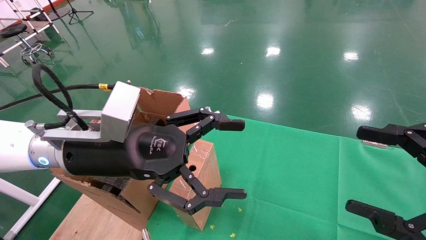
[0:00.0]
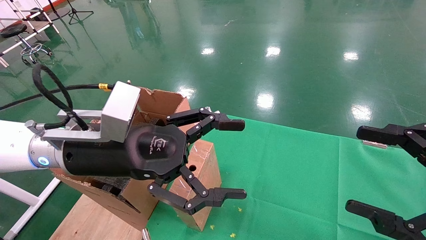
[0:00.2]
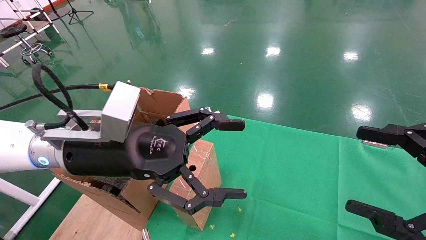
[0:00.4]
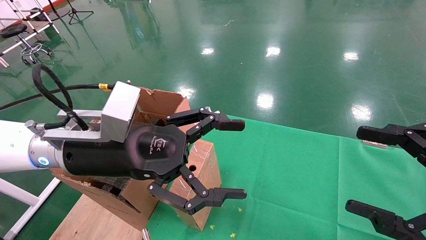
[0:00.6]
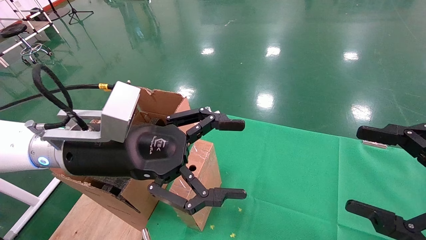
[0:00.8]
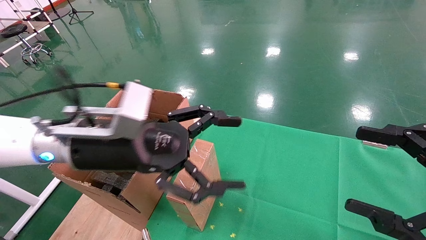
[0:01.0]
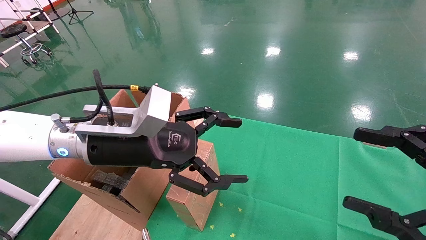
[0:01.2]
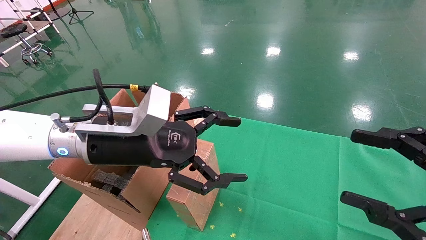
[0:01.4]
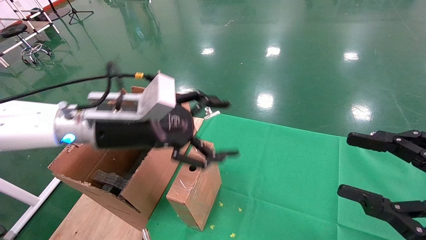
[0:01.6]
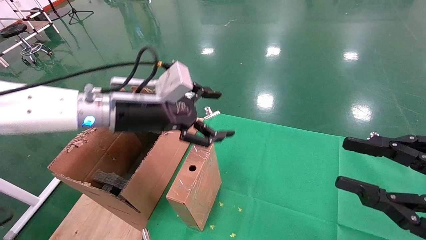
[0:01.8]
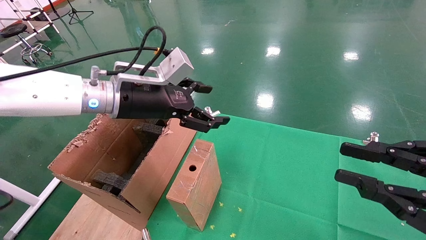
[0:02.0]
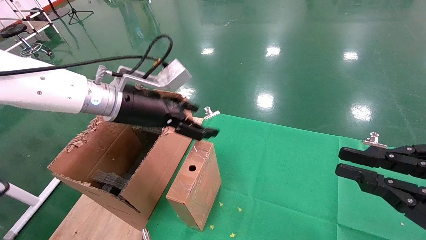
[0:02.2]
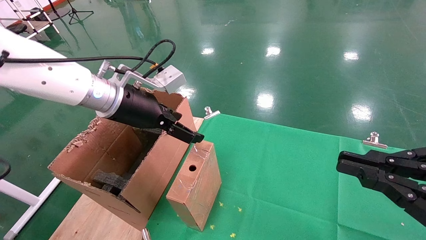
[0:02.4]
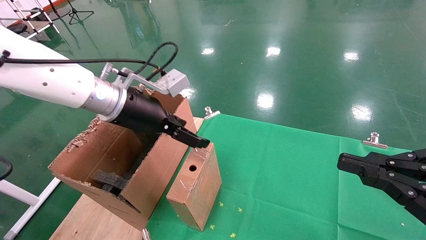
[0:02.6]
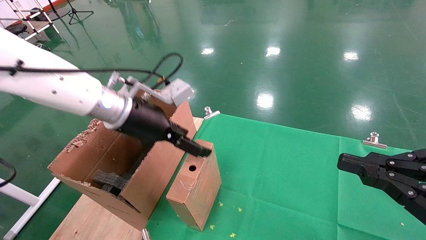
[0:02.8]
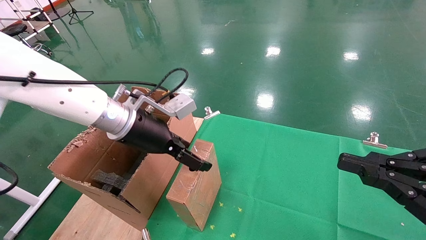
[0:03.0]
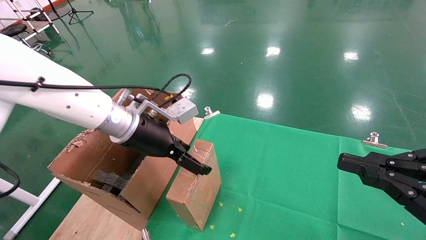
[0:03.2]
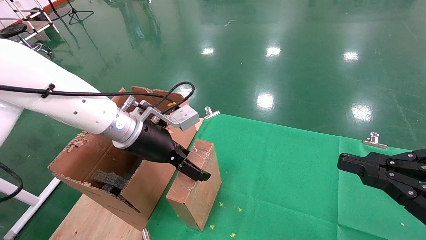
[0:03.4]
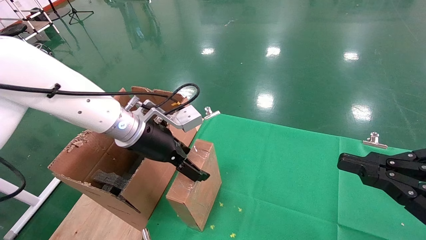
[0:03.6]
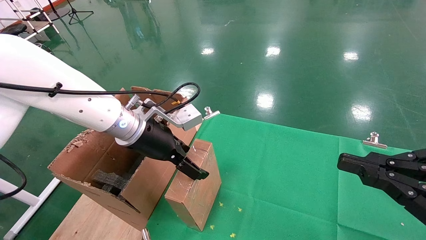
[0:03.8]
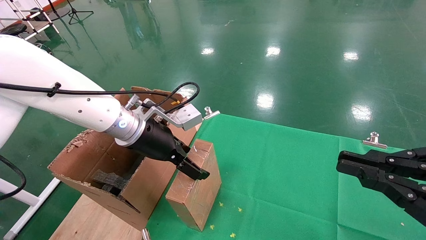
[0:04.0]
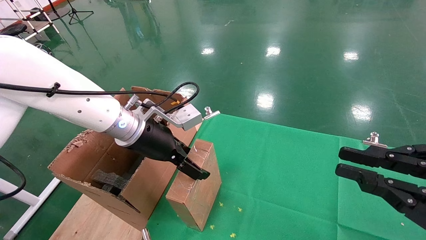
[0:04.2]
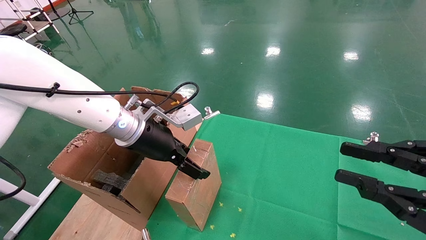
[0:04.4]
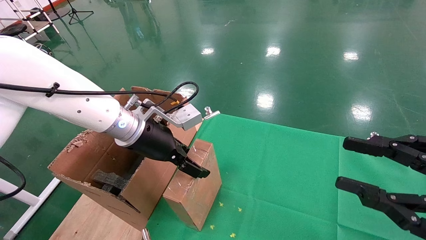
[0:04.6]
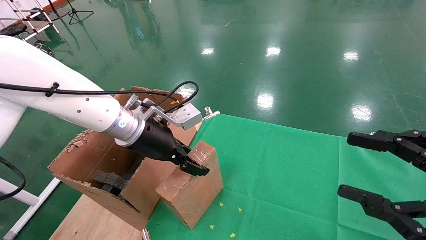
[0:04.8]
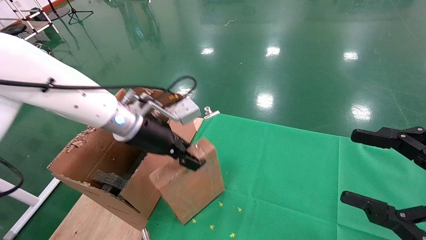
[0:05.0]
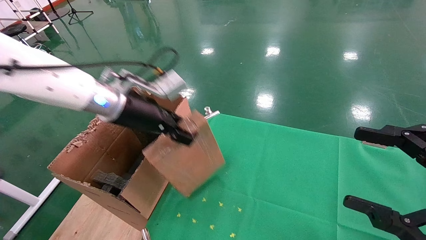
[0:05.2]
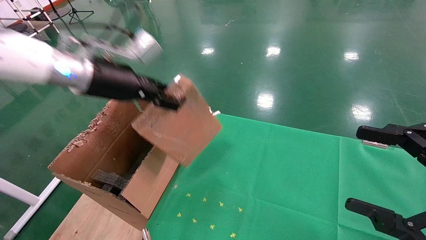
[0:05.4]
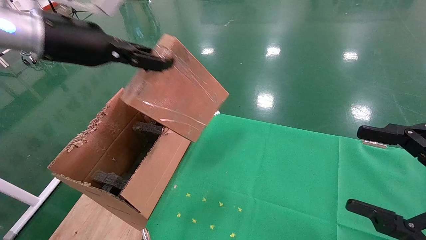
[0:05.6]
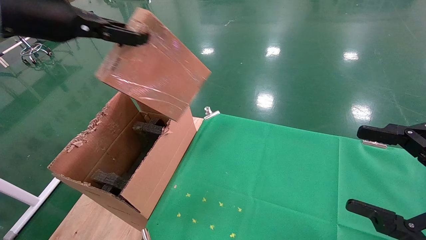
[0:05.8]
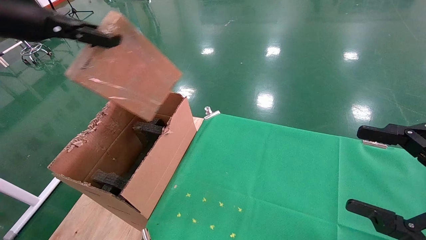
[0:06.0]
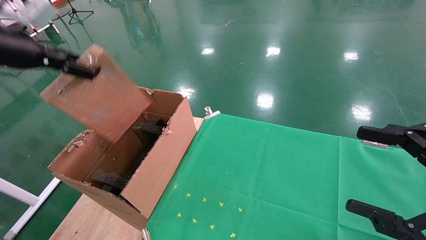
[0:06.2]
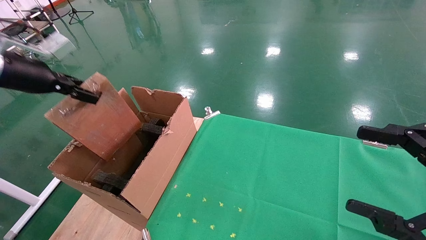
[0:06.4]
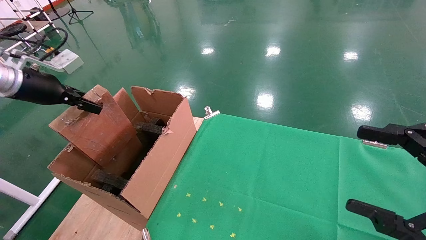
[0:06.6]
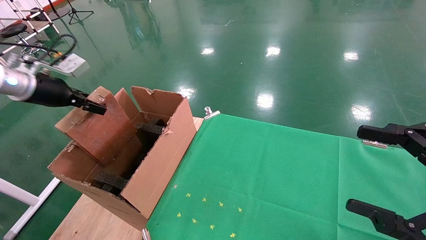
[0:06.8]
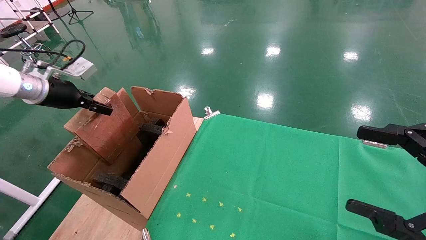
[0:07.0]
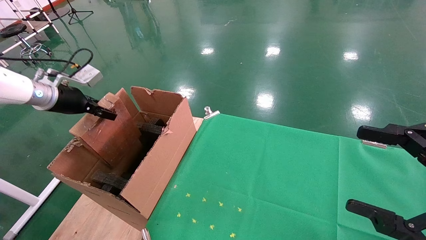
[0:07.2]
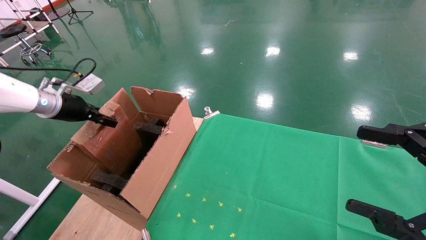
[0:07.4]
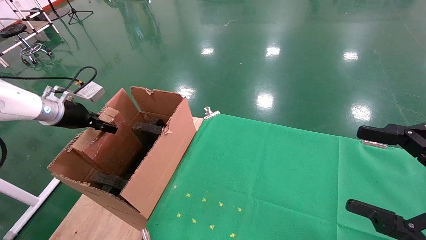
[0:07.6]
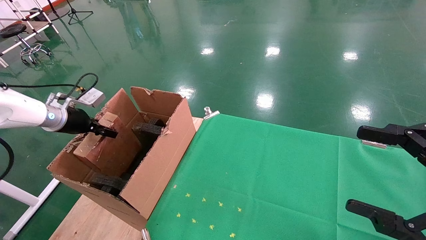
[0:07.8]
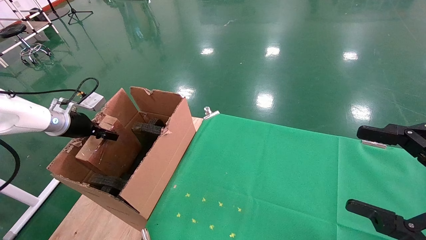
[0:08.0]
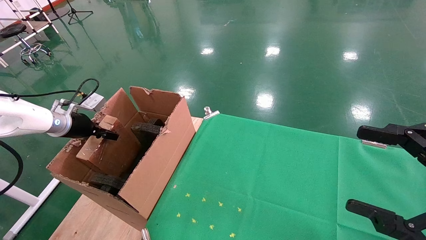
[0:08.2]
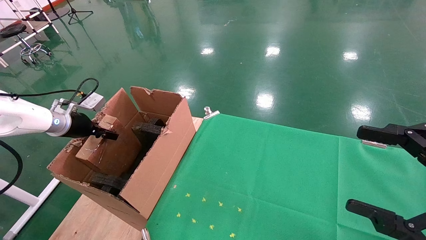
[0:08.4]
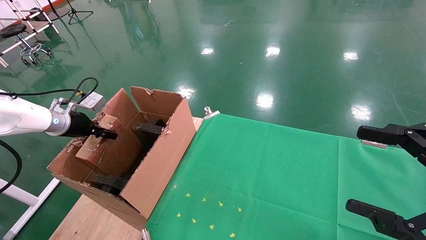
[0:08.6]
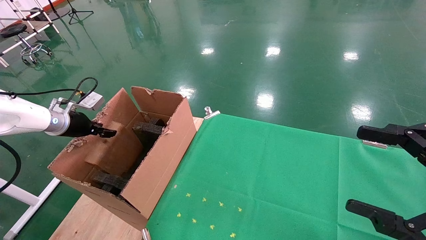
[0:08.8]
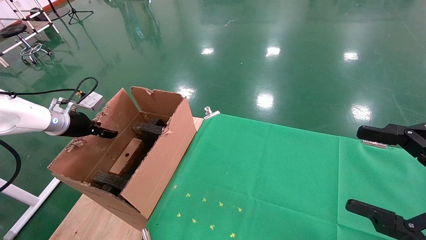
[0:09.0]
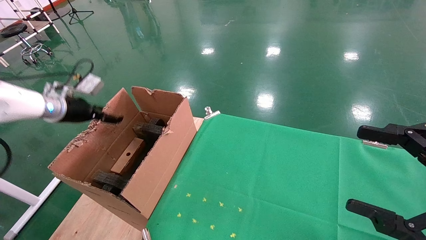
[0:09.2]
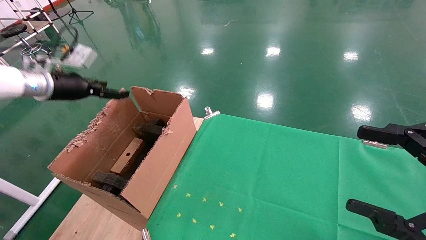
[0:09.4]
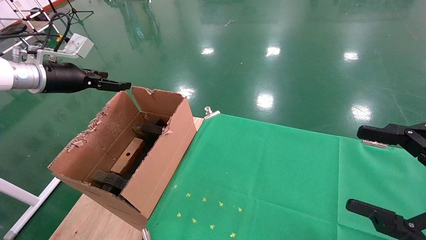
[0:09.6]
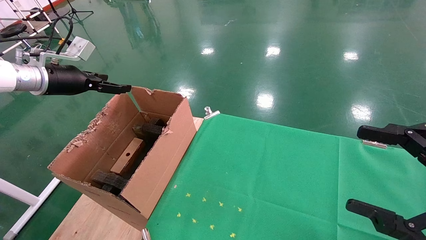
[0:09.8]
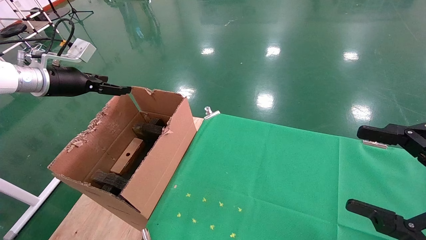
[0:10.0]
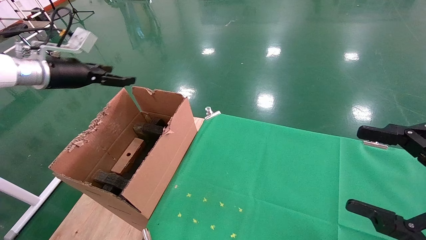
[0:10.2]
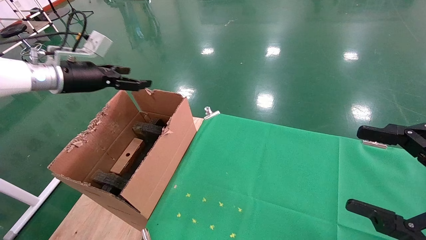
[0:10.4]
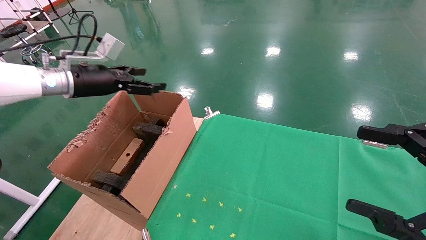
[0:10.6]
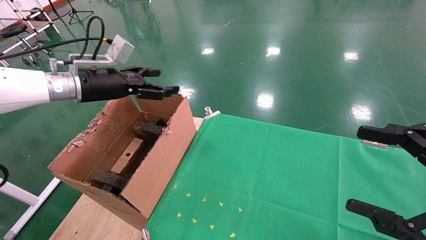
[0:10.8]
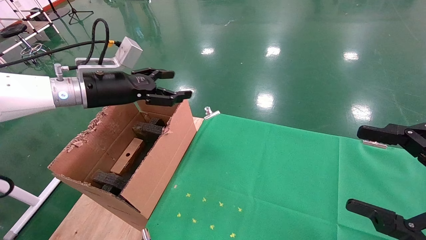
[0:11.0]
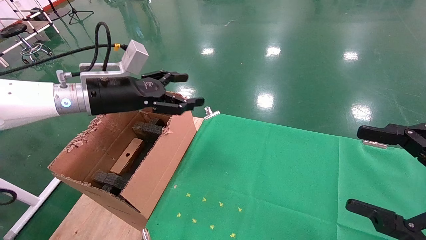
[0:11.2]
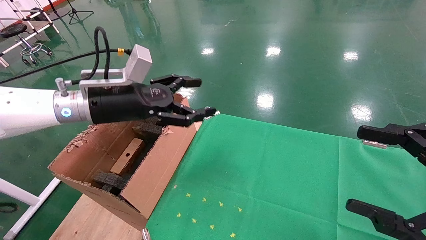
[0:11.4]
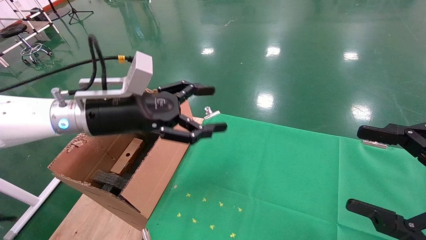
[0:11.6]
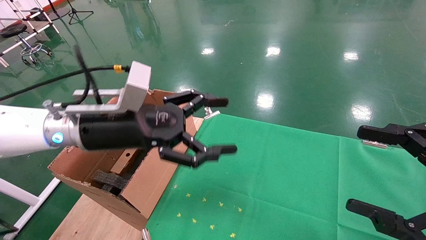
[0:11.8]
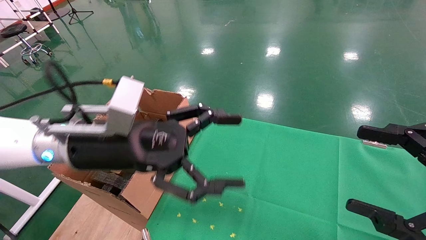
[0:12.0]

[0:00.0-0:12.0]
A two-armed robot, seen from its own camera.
Task of the whole recording: using a robotic arm to pick up a cardboard box and palace it the carton.
Step, 0:01.0 to 0:04.8: Pick up the mouse and the power cord paper box.
Step, 0:05.0 to 0:09.4: Place the mouse and the power cord paper box into the container.
0:00.0 to 0:01.6: The left gripper is displaced forward by about 5 cm.
0:01.6 to 0:03.0: The right gripper closes its fingers.
0:03.0 to 0:04.4: The grippers stay close to where they were, moving slightly.
0:04.4 to 0:06.0: The left gripper goes some 25 cm to the left and upward, and closes up. The right gripper opens up.
0:06.0 to 0:07.6: The left gripper travels downward, forward and to the left by approximately 25 cm.
0:07.6 to 0:09.0: The left gripper opens.
0:09.0 to 0:10.4: The left gripper shifts approximately 10 cm upward and to the right, and opens its fingers.
0:10.4 to 0:12.0: The left gripper moves to the right and backward, approximately 25 cm.

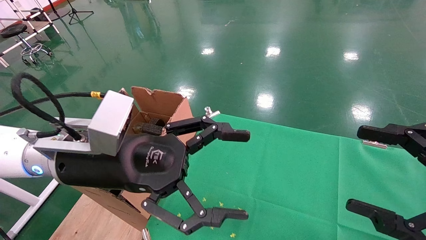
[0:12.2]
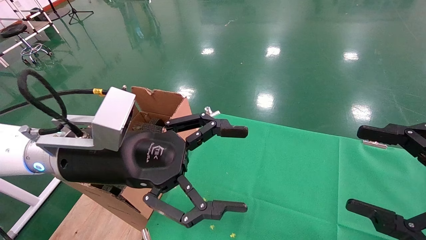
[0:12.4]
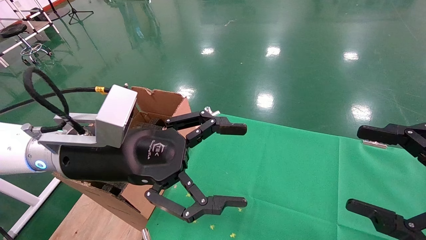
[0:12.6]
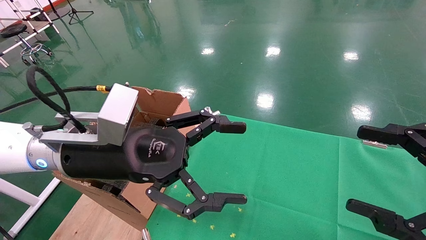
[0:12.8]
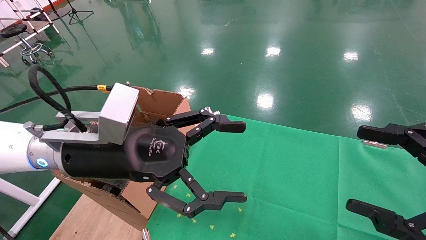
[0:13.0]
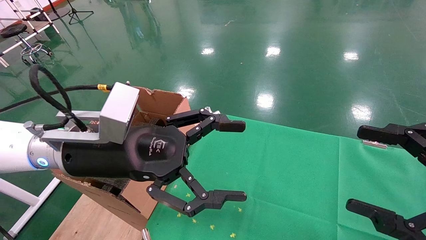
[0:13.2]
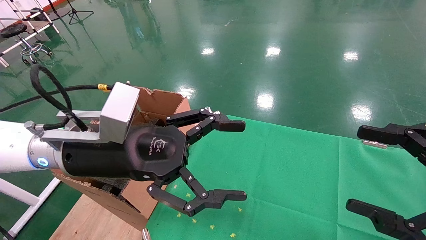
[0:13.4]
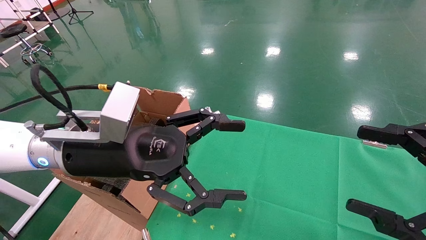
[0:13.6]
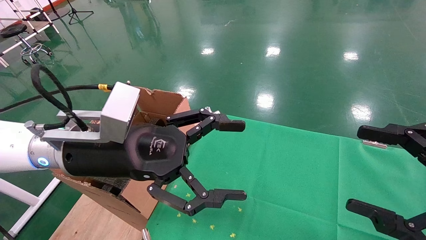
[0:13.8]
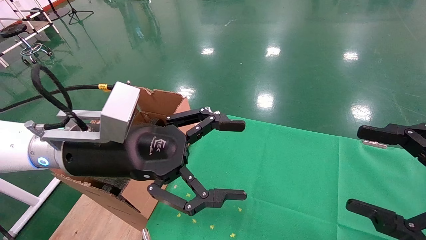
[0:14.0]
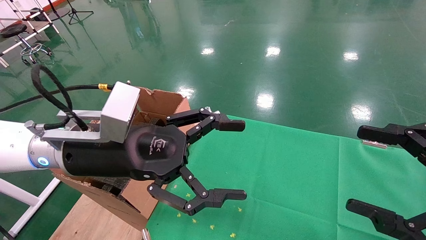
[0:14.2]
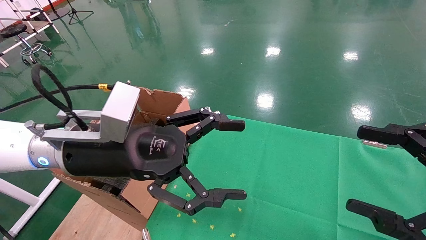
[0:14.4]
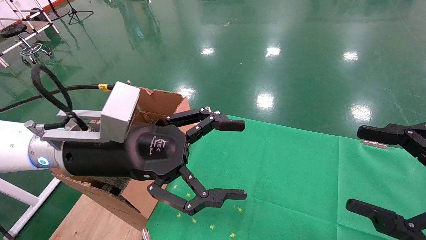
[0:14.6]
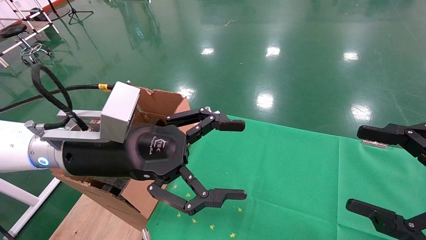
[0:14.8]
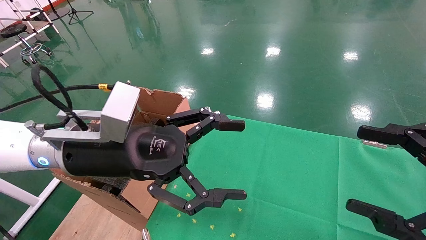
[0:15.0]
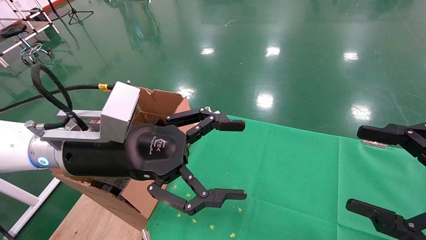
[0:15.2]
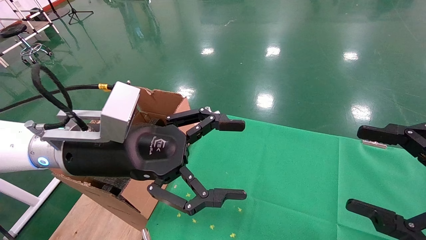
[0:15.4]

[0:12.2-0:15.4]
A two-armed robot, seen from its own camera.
Task of the whole recording: using a robotic arm to pick up a cardboard box and palace it the carton.
0:12.2 to 0:15.4: Both grippers stay put.
